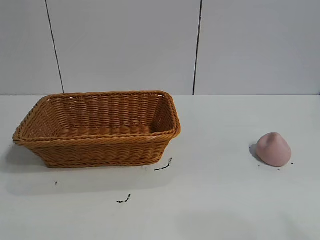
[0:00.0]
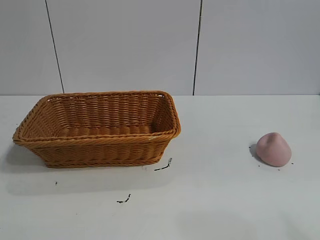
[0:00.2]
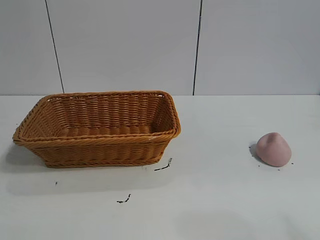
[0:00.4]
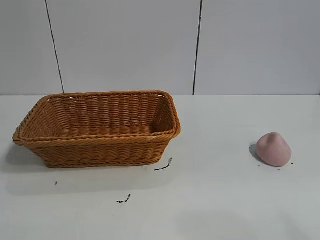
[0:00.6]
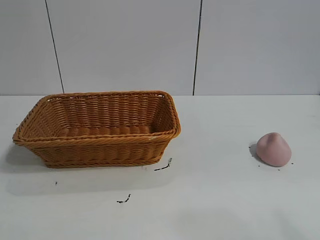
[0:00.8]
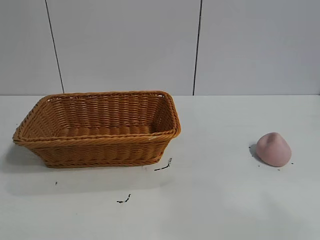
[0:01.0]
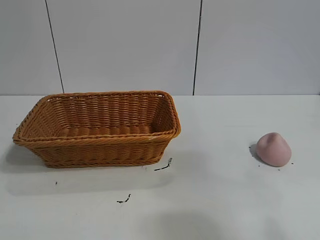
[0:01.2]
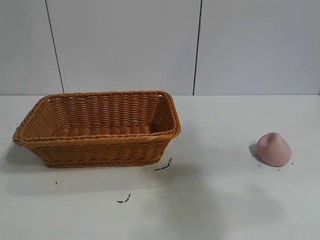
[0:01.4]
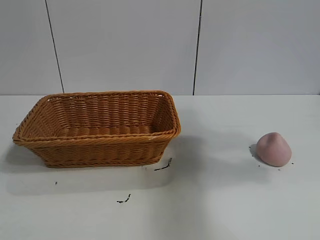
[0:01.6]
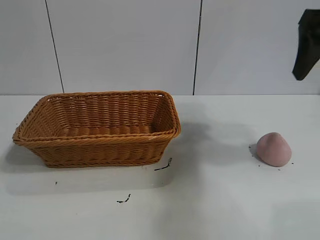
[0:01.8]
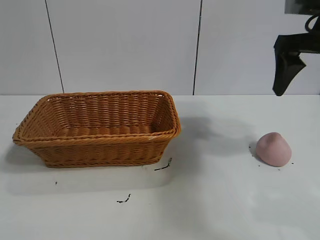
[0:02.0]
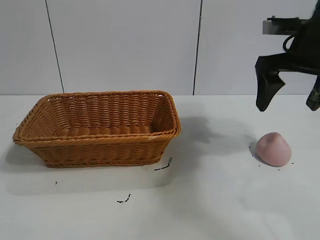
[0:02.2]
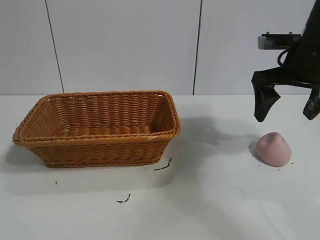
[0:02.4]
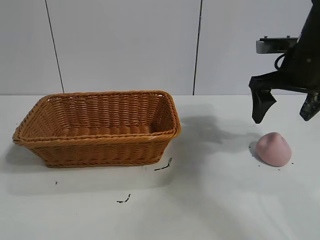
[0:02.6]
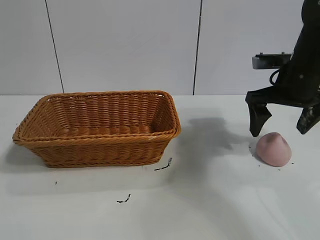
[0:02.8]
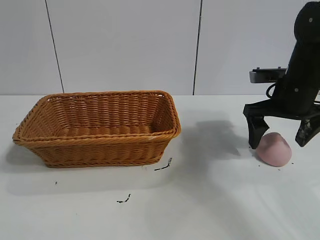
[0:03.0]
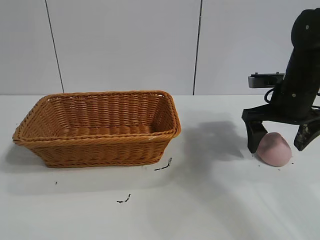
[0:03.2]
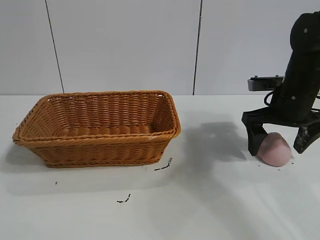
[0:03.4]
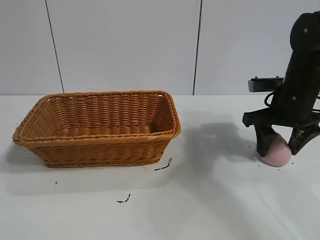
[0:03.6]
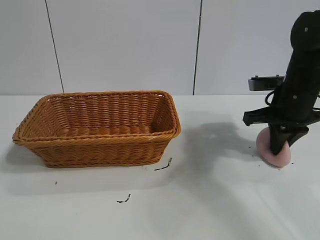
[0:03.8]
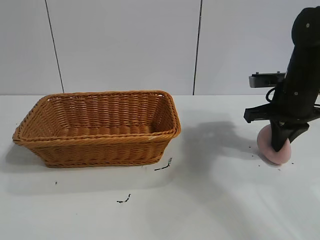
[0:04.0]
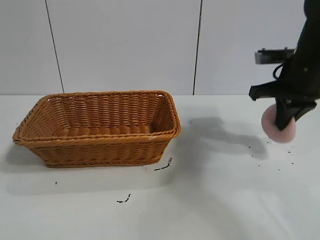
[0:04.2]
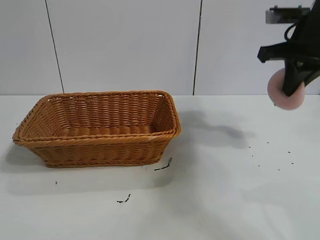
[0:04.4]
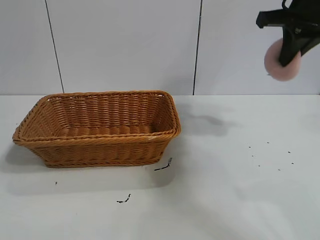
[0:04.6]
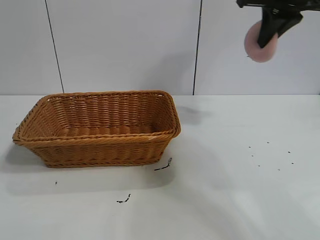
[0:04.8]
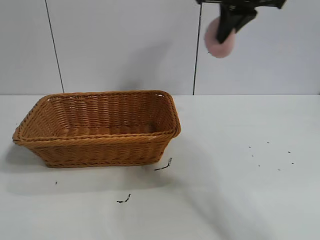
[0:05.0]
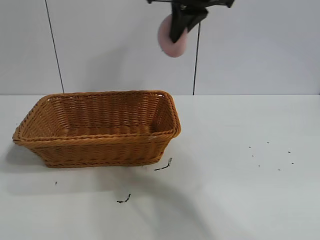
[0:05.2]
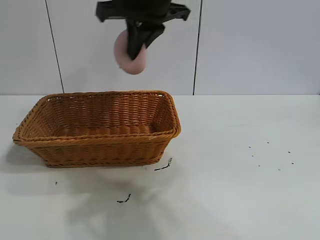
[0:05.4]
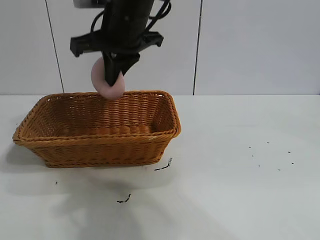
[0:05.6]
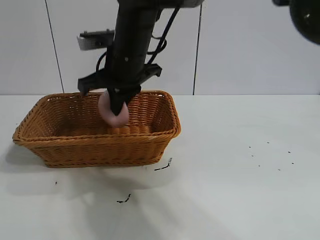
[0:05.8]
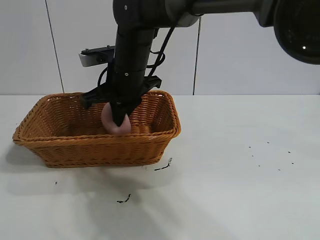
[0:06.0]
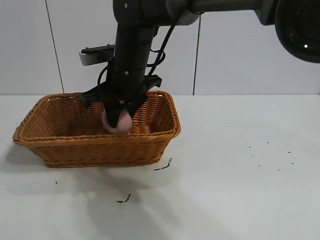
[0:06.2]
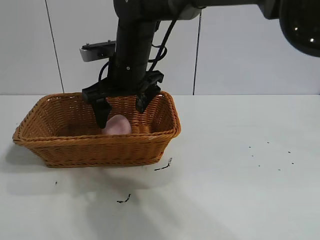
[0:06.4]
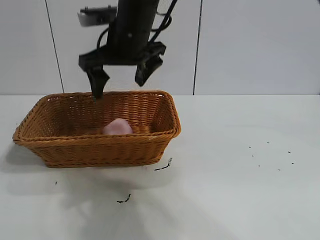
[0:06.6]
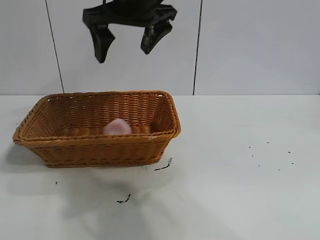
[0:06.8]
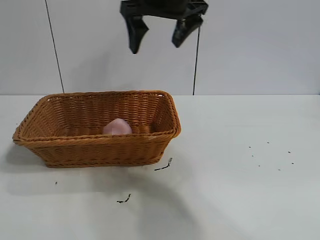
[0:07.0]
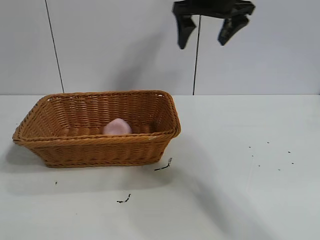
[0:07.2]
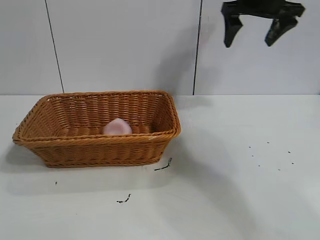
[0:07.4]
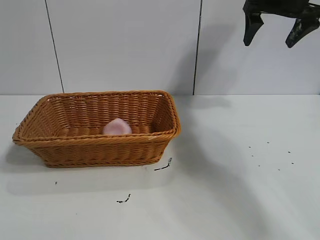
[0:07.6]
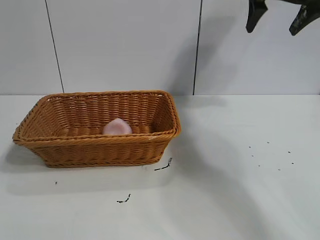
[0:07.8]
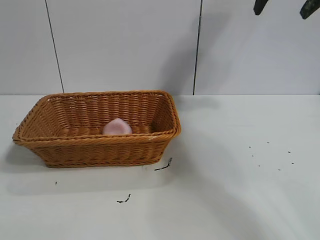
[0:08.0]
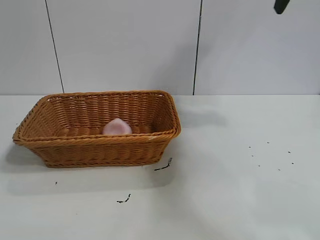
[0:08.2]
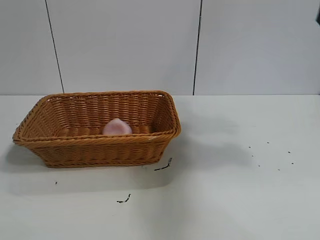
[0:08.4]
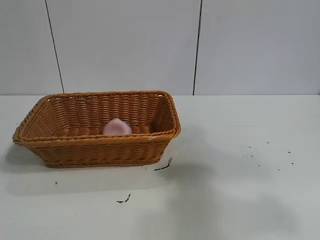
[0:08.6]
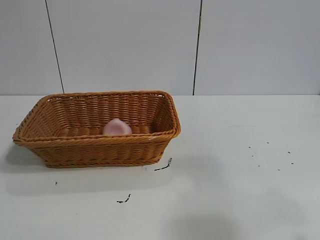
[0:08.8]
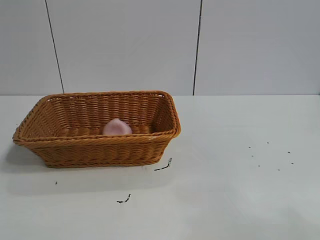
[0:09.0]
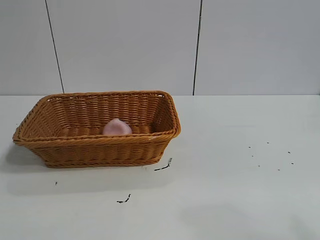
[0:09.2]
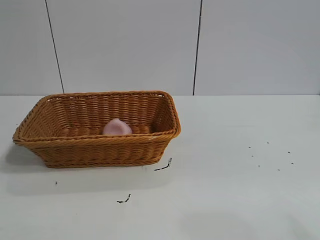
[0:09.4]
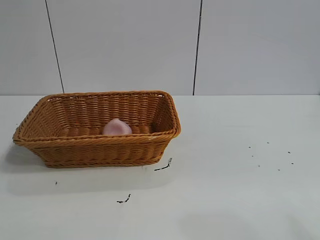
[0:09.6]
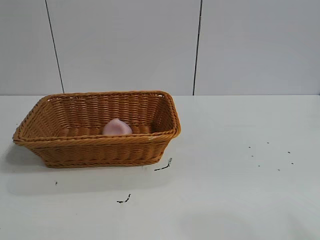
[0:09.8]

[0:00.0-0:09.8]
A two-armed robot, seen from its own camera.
Task of the whole recording: pick up the peach and put it into the basket.
Step, 0:00.8 to 0:04.0: Grasp the peach with right gripper.
Step, 0:04.2 to 0:06.4: Place the peach in the basket with right gripper.
